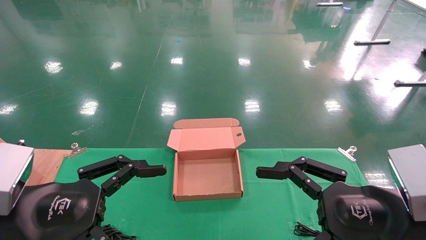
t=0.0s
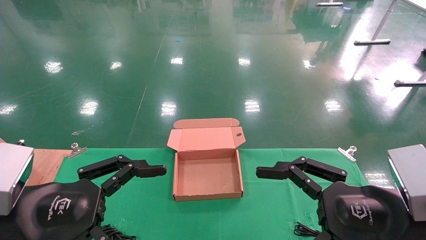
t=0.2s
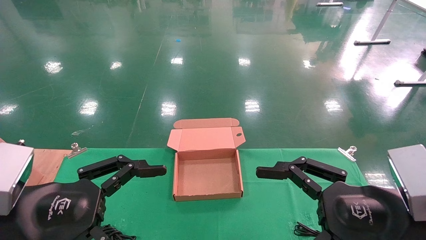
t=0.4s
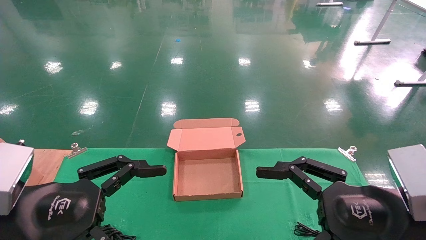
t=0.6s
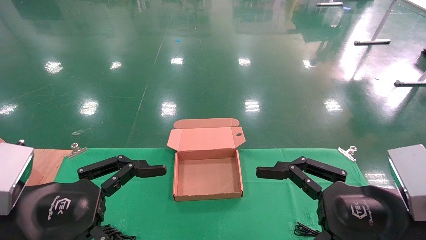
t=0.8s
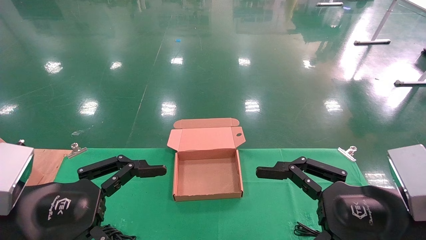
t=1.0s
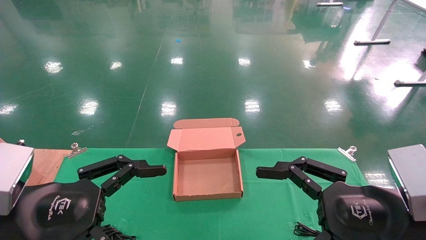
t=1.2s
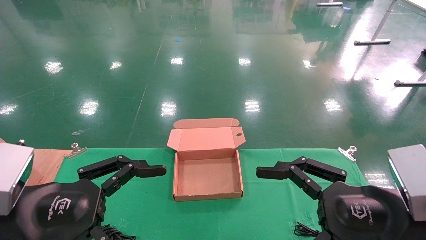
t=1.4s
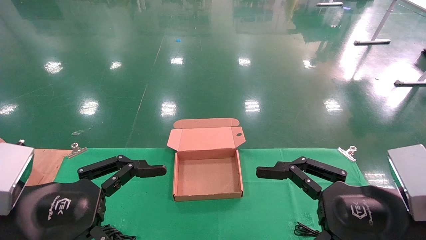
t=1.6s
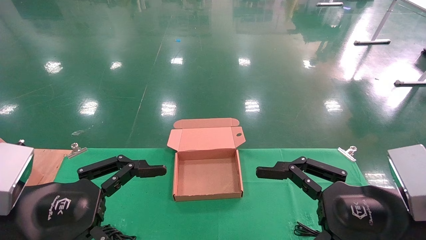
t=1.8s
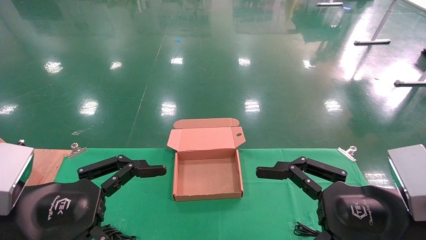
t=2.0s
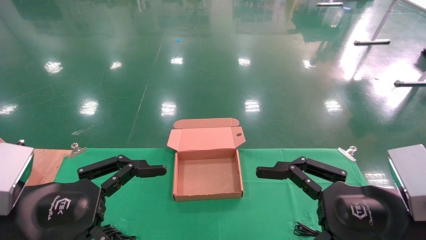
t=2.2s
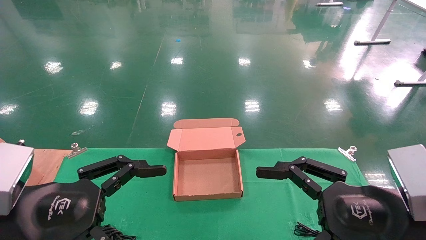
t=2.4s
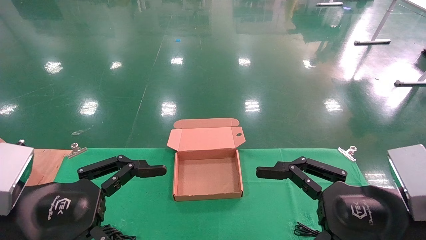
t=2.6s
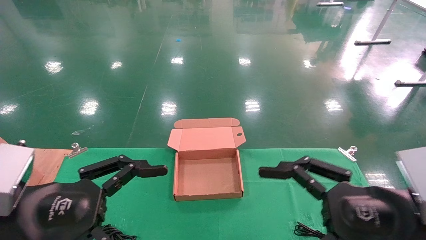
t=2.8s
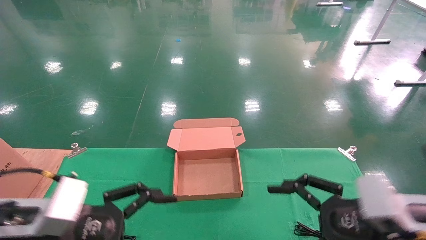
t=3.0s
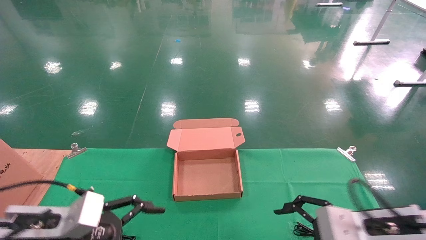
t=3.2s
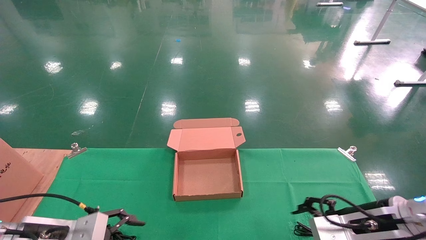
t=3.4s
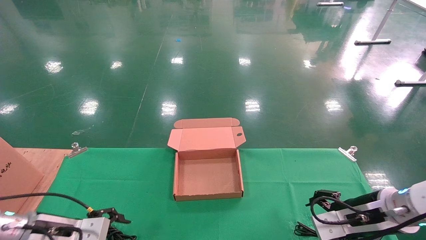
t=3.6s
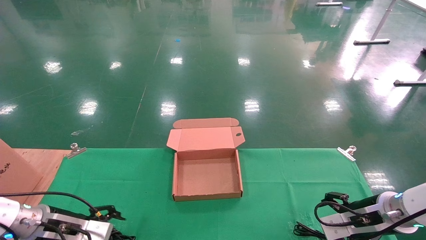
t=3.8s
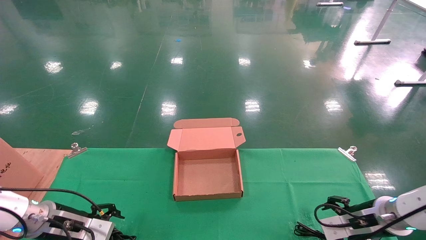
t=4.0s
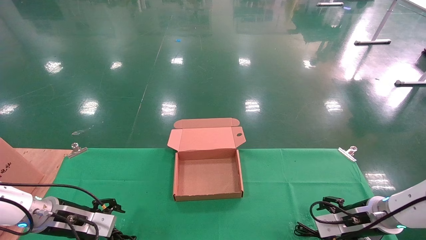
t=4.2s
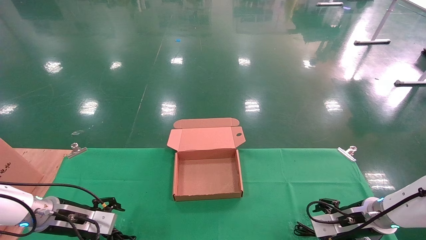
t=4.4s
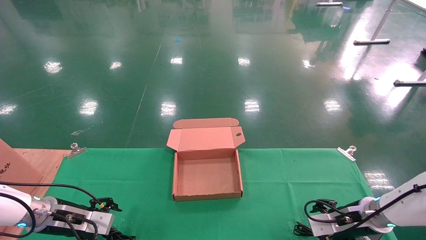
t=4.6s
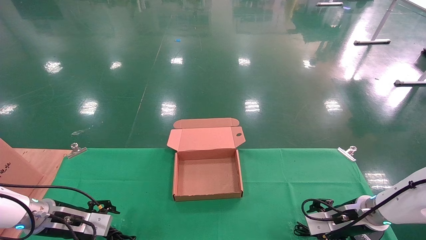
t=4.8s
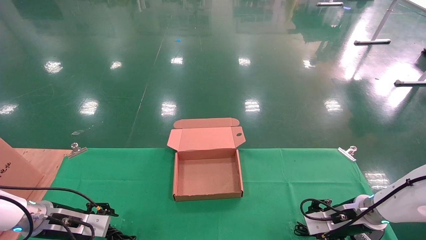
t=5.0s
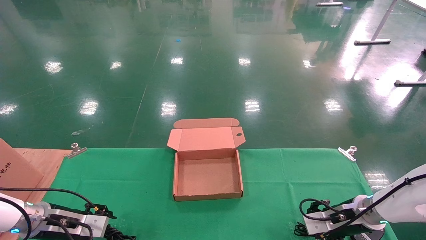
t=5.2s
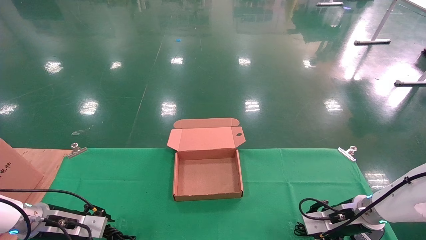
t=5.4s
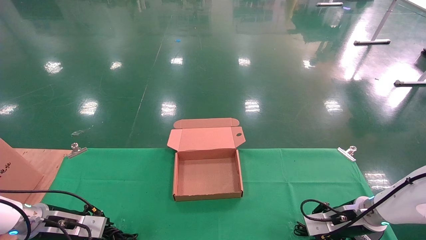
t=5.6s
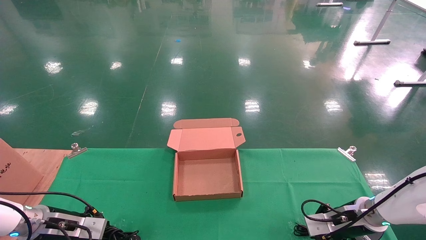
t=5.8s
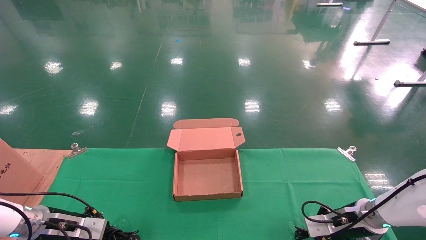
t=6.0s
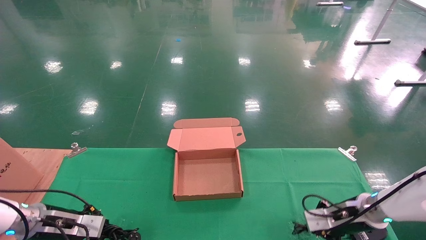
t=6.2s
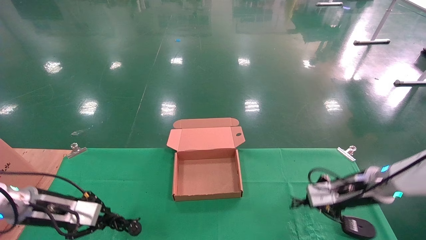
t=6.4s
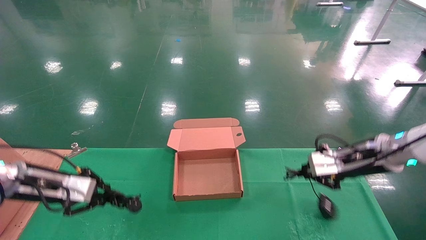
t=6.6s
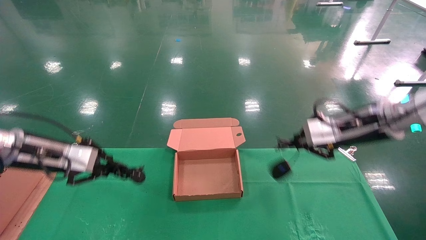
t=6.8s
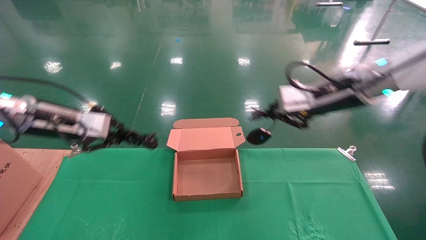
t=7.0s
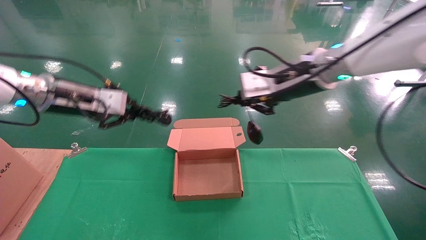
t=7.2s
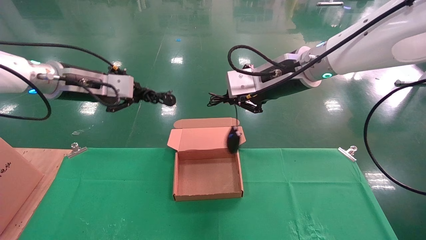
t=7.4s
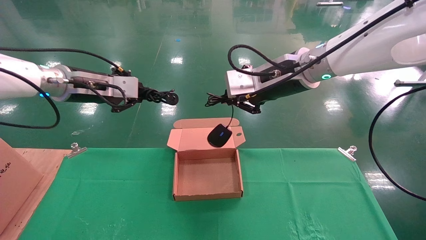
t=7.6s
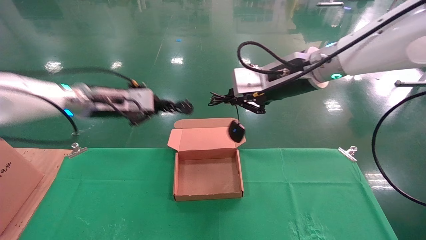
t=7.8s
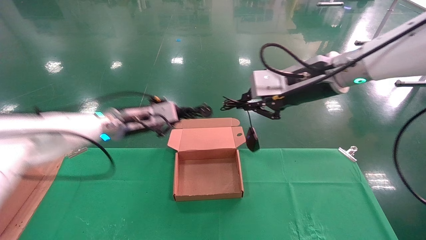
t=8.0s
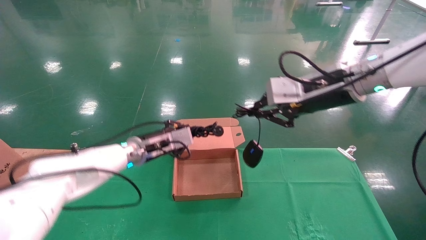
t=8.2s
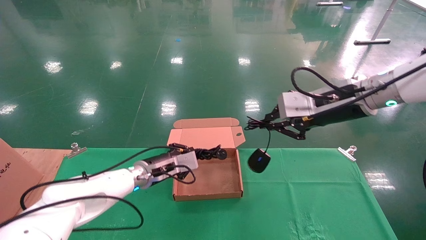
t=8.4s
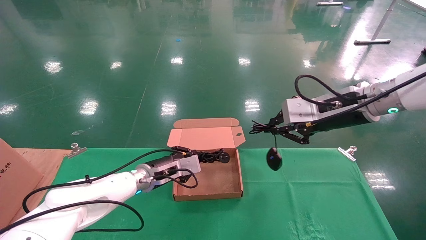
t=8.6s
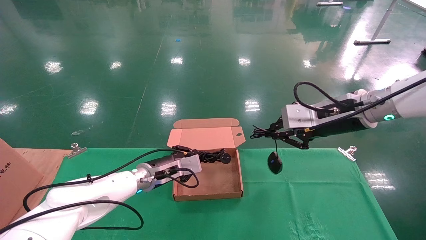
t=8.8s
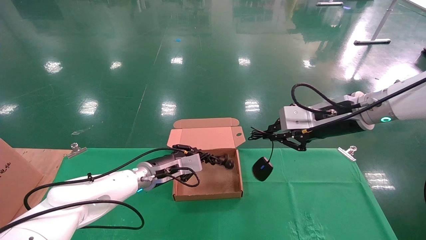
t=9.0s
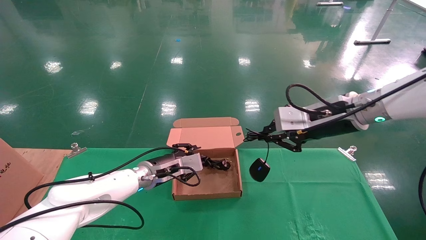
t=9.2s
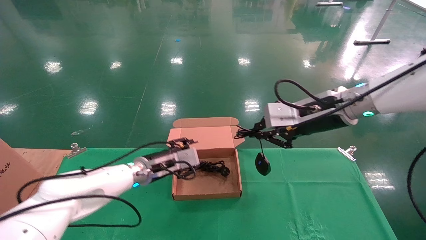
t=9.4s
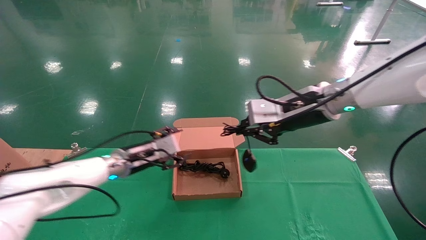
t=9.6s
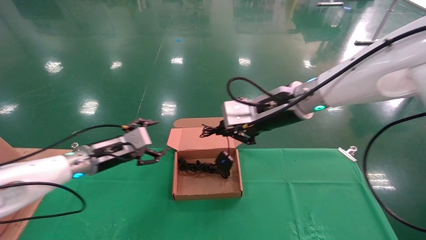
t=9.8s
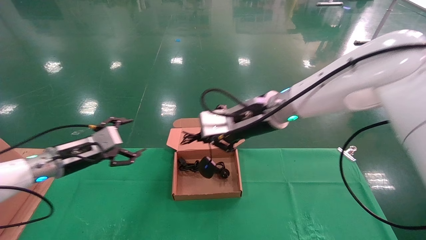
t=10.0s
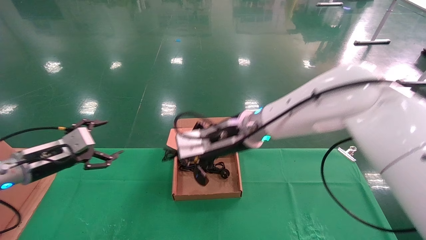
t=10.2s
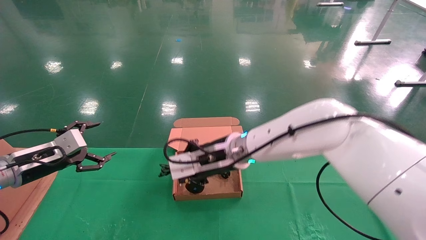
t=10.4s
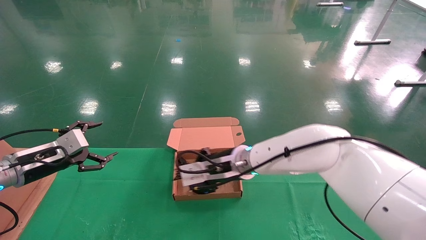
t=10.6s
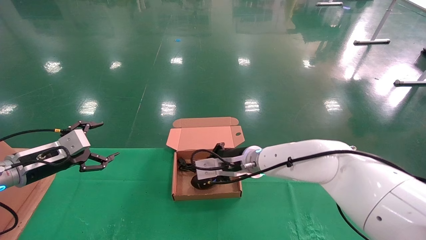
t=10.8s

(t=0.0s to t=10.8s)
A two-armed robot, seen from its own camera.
Step, t=3.2s - t=6.4s: Grab and lift both the mouse and power cord from the accessory packaging area at the same time.
t=0.0s - t=1.6s: Both grippers stay about where they are.
t=1.6s - t=3.0s: The left gripper goes roughly 5 cm downward. The right gripper shifts by about 5 cm.
t=3.0s - t=4.6s: The left gripper travels forward, downward and to the left by roughly 20 cm; the right gripper goes approximately 20 cm forward and downward.
t=4.6s - t=6.2s: The left gripper closes up; the right gripper closes its fingers.
t=6.2s - t=7.8s: The right gripper goes some 35 cm upward and to the left, while the left gripper goes roughly 25 cm upward and to the right.
t=7.8s - t=9.2s: The right gripper heads to the right and downward, covering some 10 cm. Meanwhile the left gripper goes approximately 20 cm downward and to the right.
t=9.2s - t=10.8s: The right gripper is displaced to the left and downward by some 20 cm; the left gripper moves to the left, roughly 25 cm, and opens its fingers.

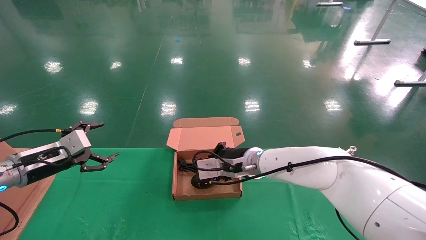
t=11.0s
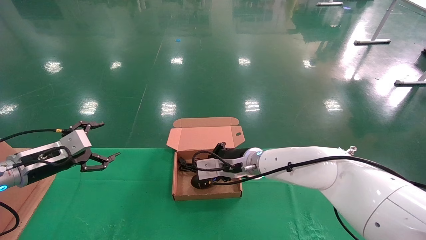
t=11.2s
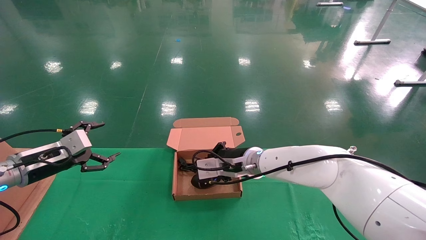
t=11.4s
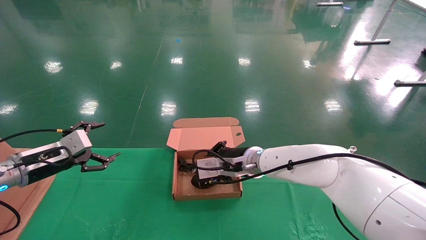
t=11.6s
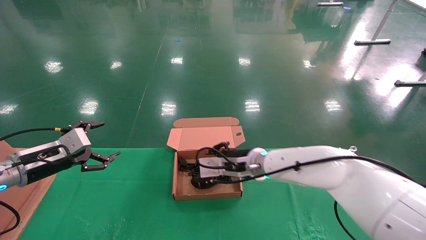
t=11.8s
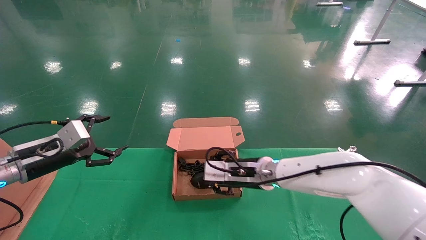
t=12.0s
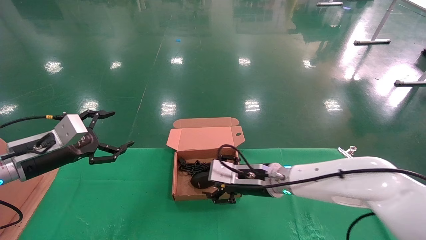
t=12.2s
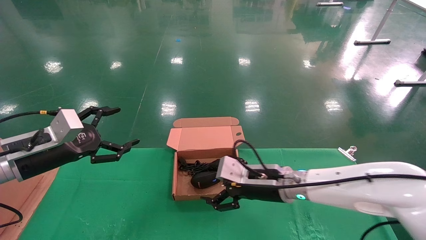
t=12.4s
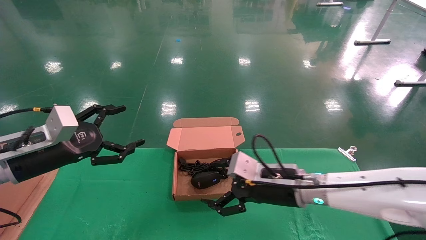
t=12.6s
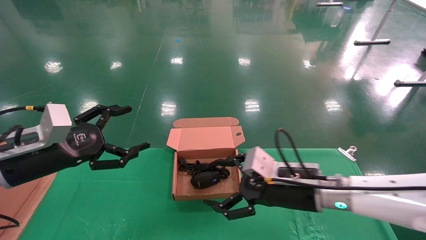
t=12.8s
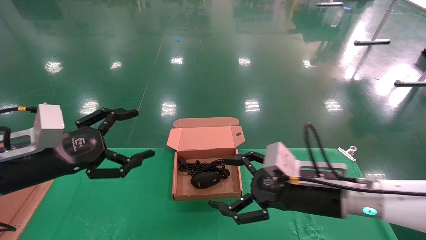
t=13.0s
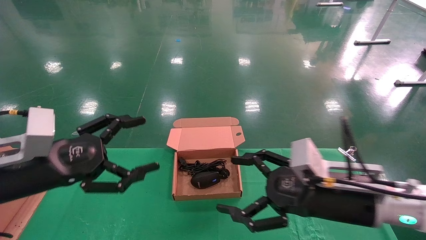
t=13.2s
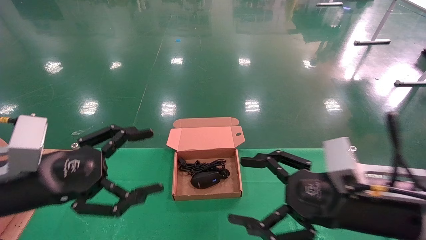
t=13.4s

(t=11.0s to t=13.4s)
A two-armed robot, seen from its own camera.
t=11.0s - t=12.2s: The left gripper changes place by roughly 5 cm; the right gripper ends up roughly 5 cm from where it was, and opens its fingers.
t=12.2s - t=13.4s: The two grippers go approximately 20 cm backward and to the right. The right gripper opens up.
